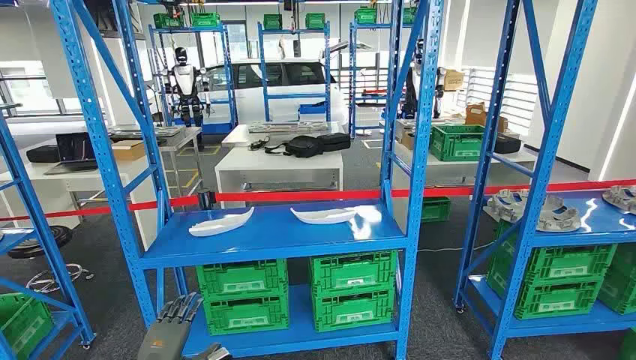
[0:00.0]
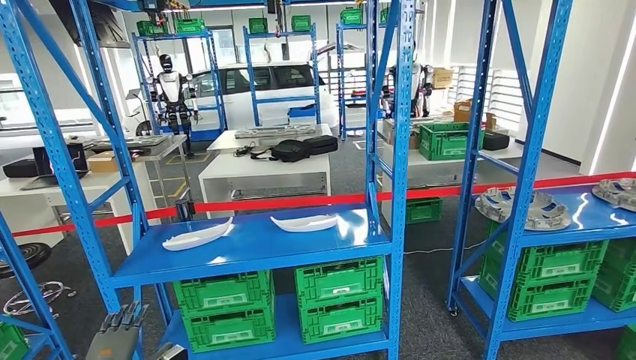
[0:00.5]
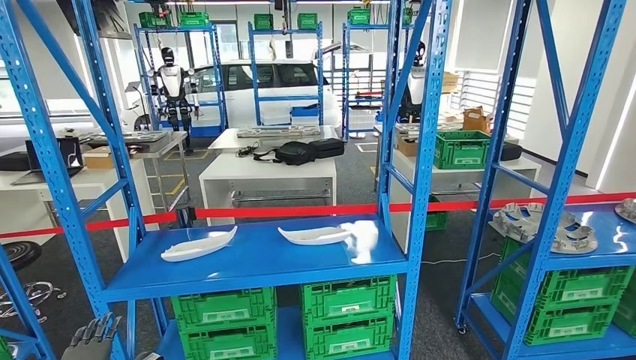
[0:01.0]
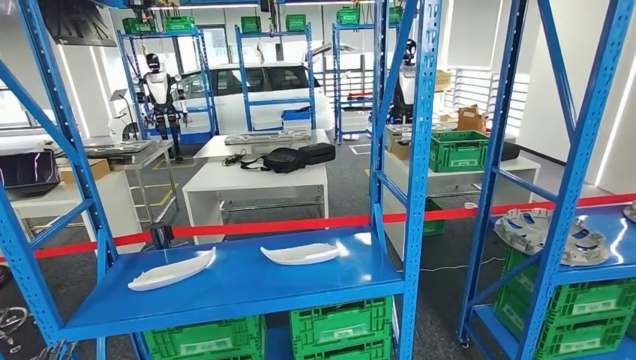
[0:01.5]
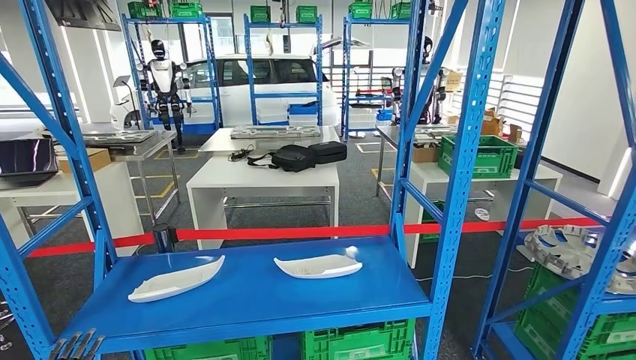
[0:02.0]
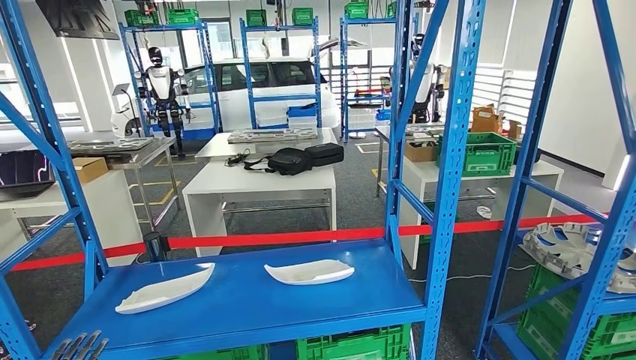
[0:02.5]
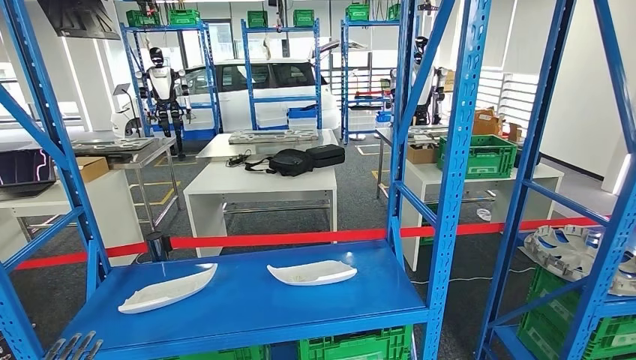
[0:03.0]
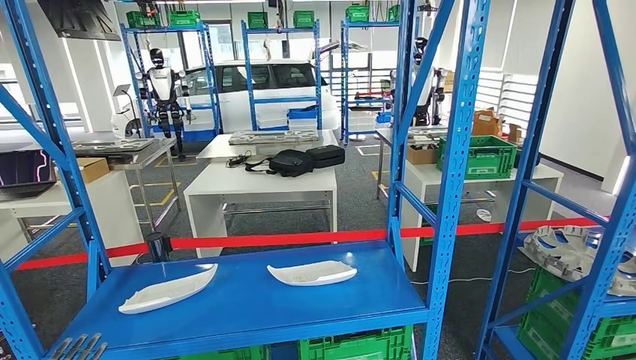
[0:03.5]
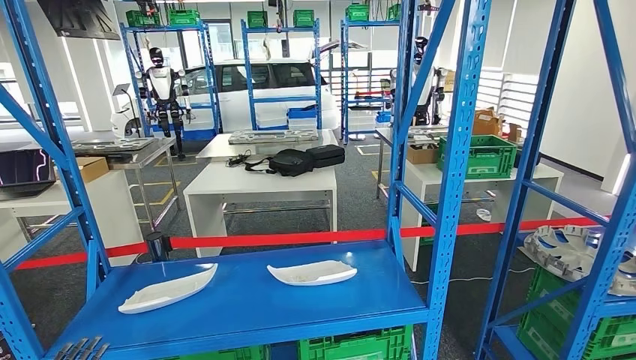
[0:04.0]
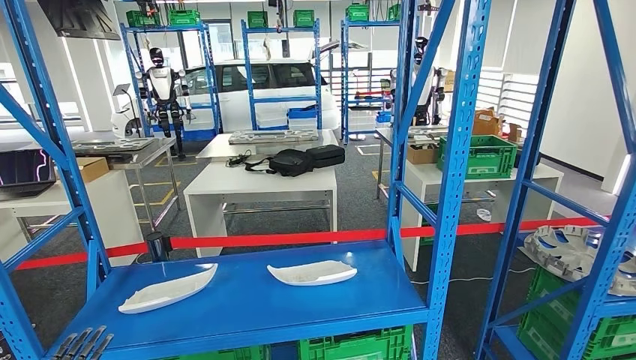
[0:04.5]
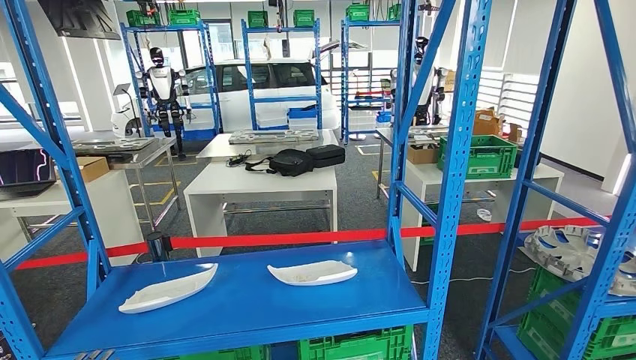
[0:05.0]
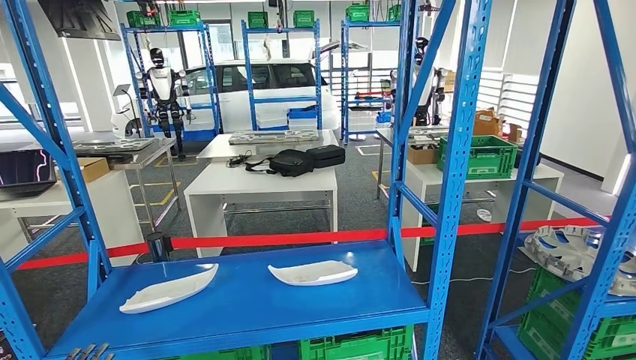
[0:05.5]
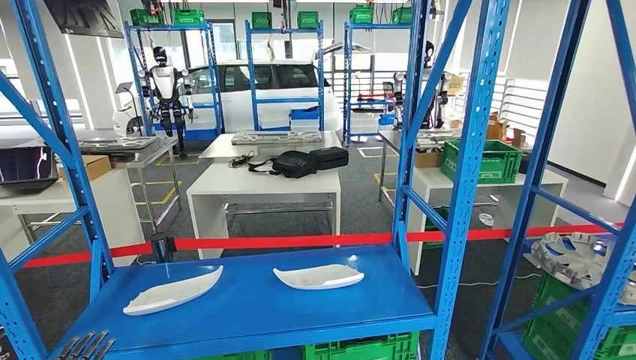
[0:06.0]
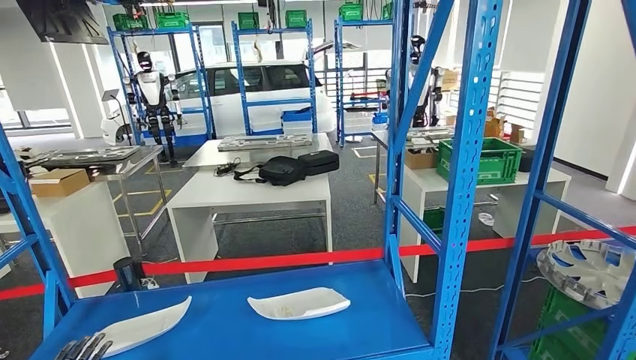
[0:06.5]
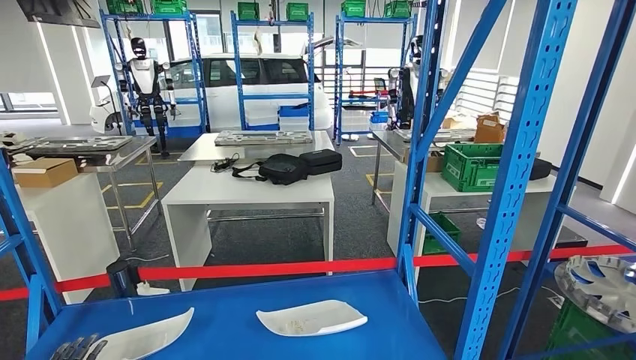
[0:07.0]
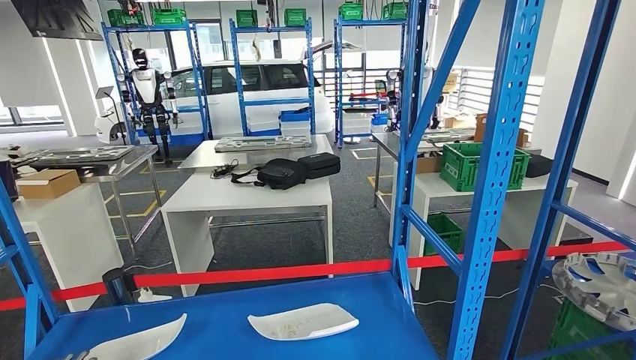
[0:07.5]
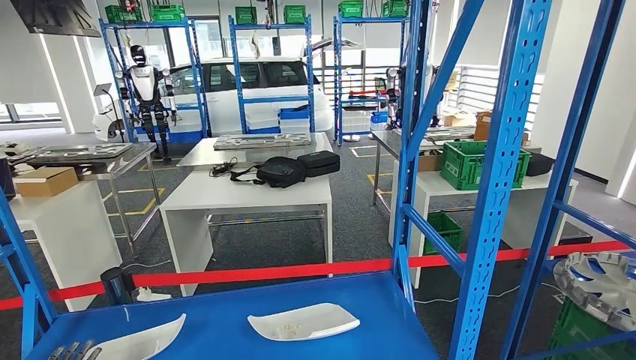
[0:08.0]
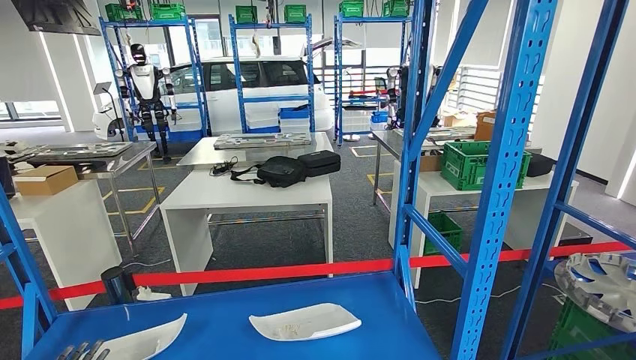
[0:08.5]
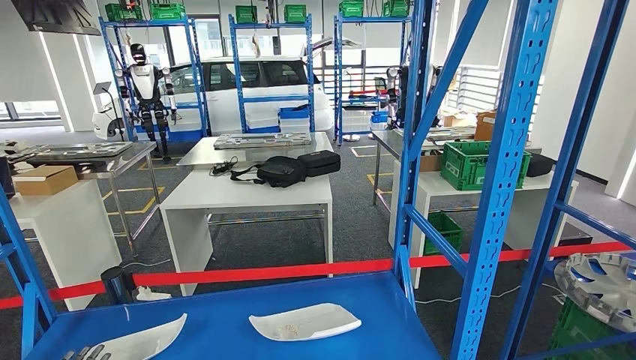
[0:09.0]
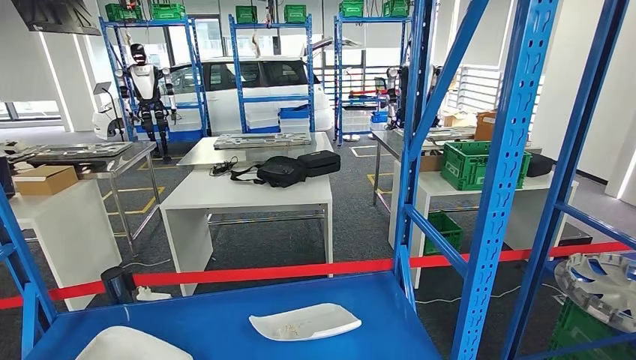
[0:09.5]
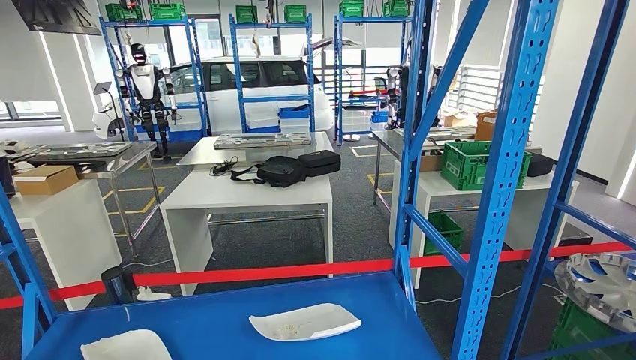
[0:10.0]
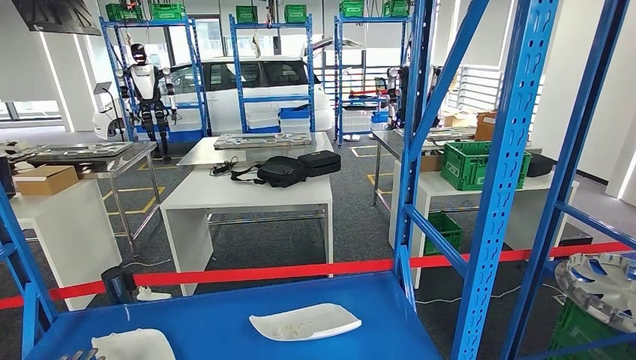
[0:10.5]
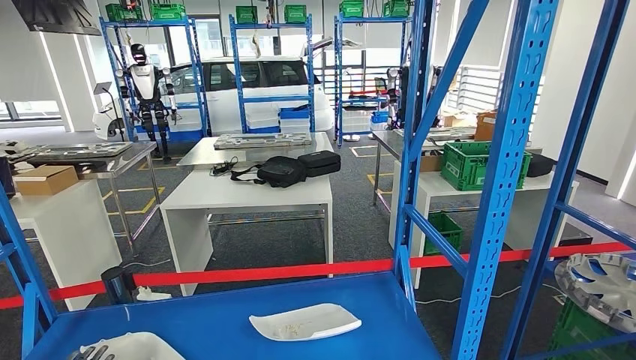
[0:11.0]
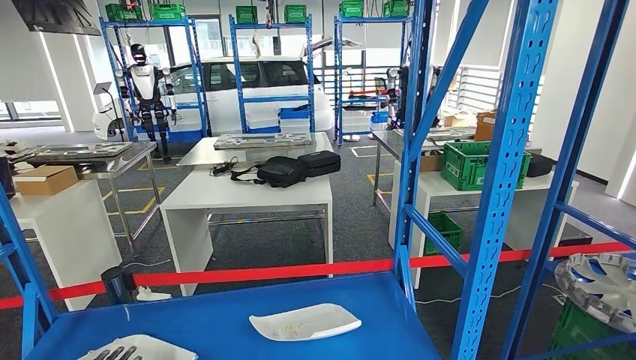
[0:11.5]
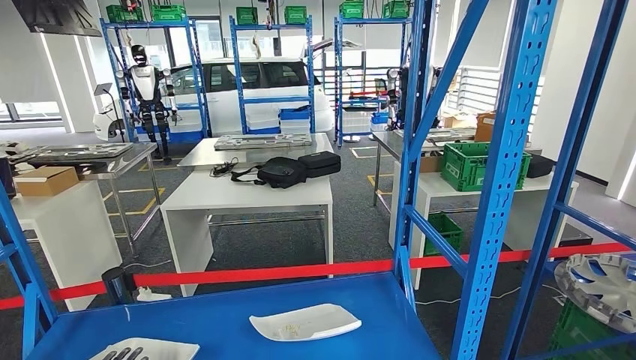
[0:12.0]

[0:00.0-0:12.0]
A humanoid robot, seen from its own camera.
0:08.0 to 0:10.0: The hands move only a little.
0:10.0 to 0:12.0: The left hand moves approximately 5 cm.

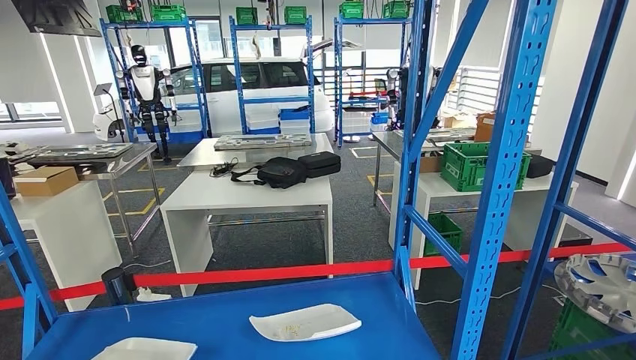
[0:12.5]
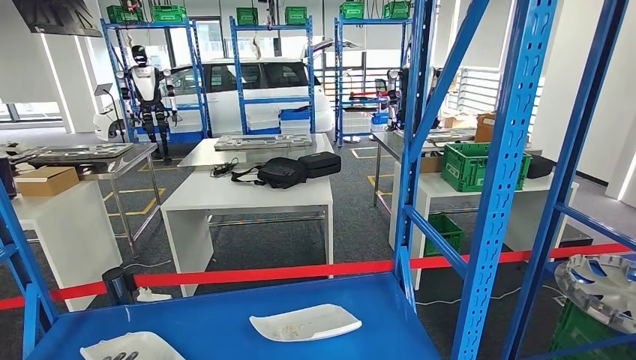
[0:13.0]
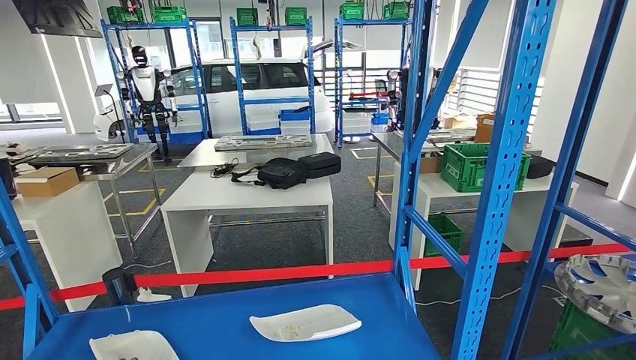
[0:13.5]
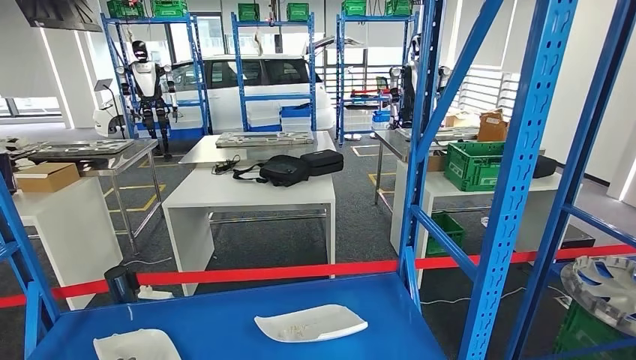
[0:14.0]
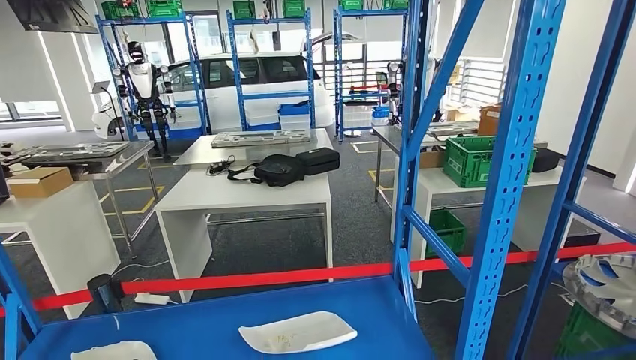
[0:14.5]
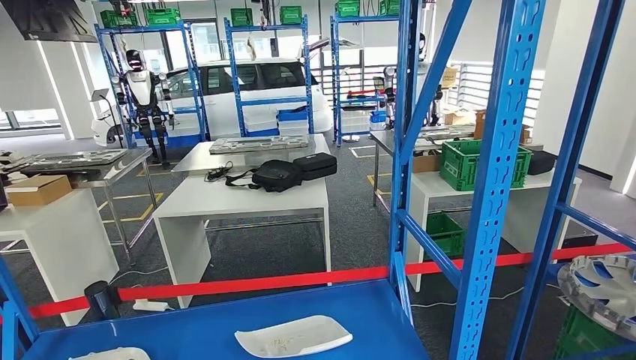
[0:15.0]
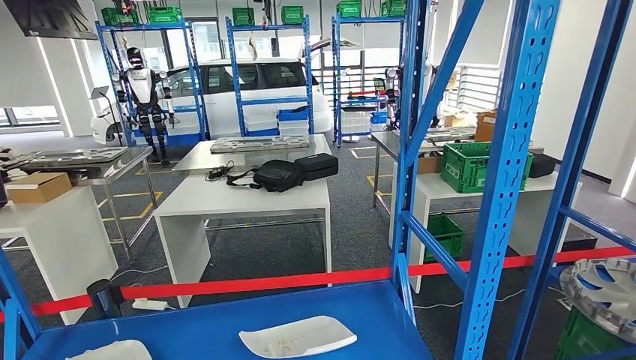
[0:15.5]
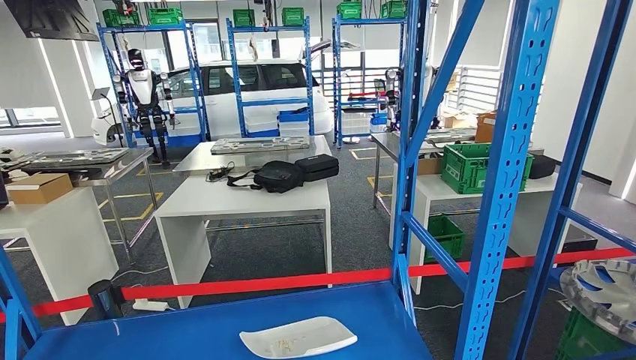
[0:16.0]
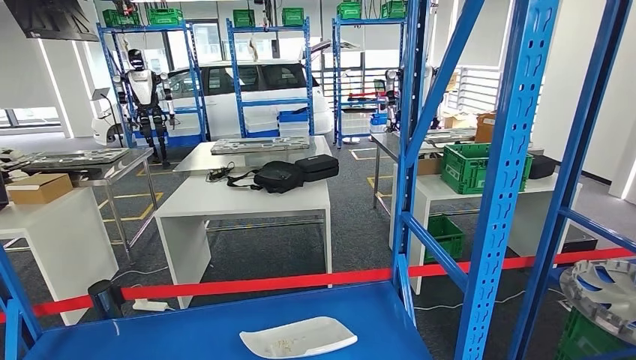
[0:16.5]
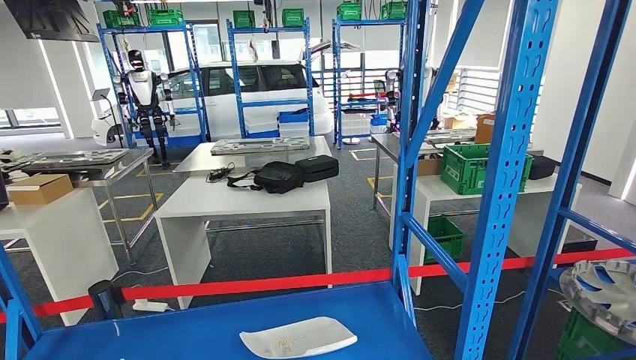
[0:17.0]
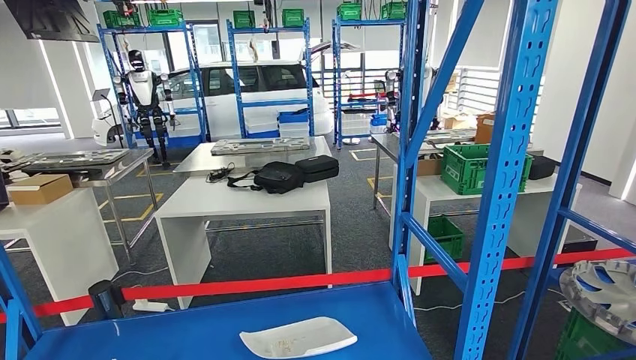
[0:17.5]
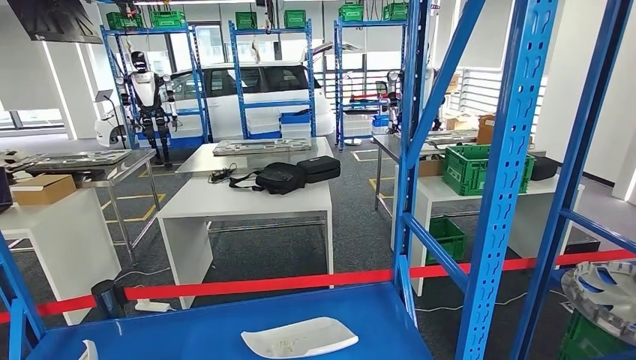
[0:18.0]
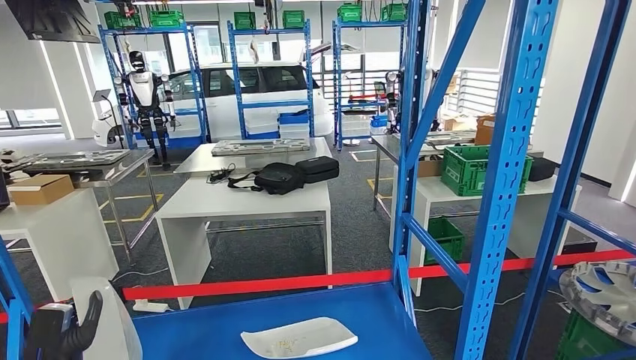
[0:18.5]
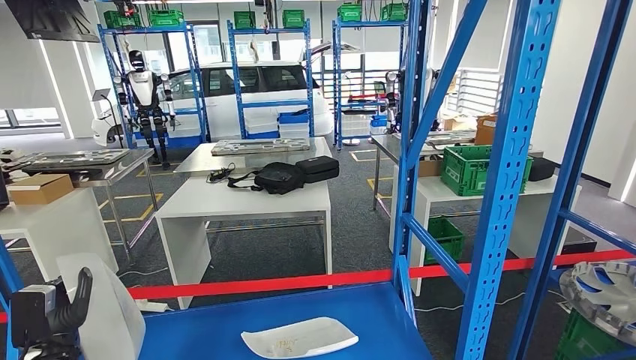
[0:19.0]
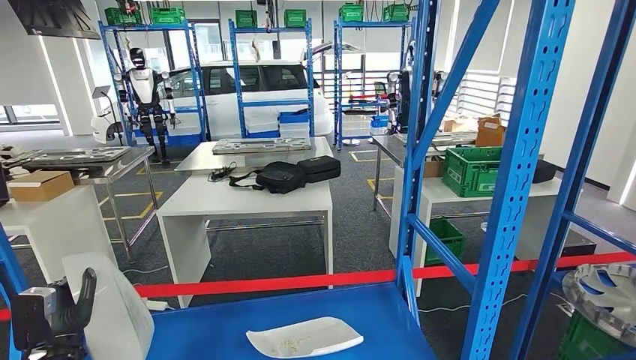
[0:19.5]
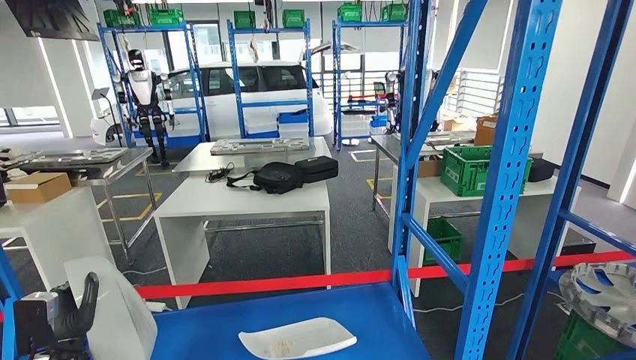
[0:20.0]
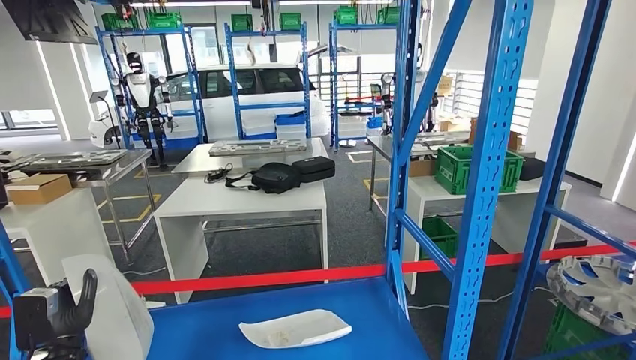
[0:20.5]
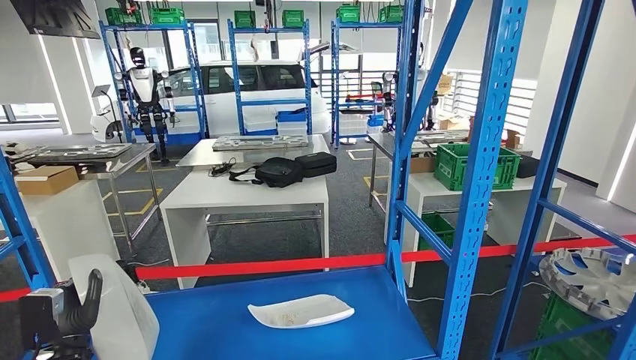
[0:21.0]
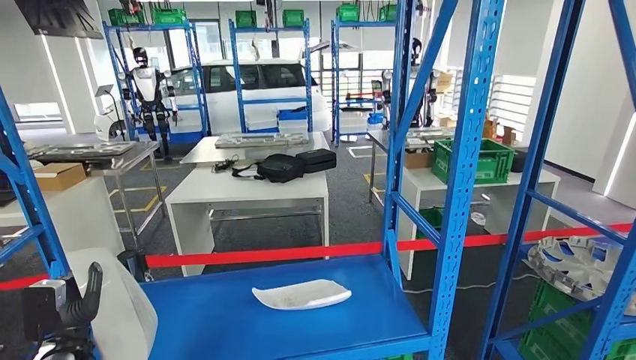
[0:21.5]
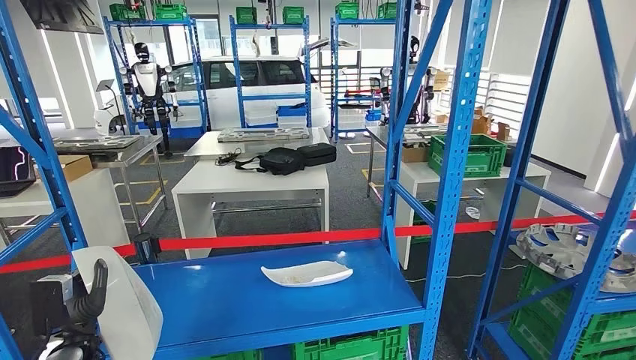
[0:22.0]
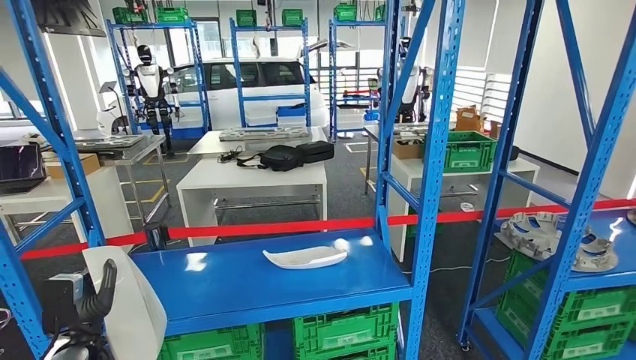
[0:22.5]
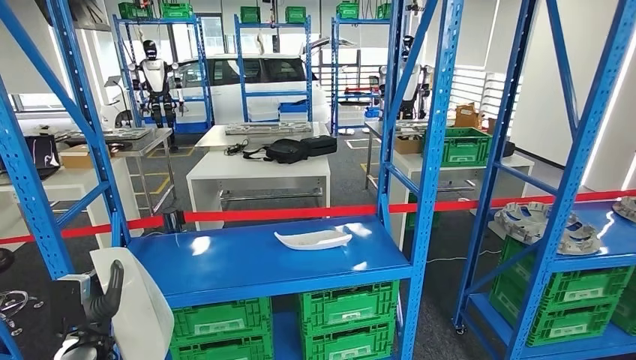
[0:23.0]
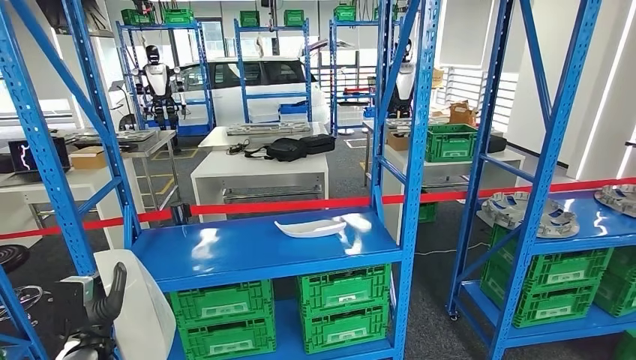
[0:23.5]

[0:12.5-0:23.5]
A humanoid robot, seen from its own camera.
Step, 0:12.5 to 0:21.5: Pick up the small component from the shelf.
